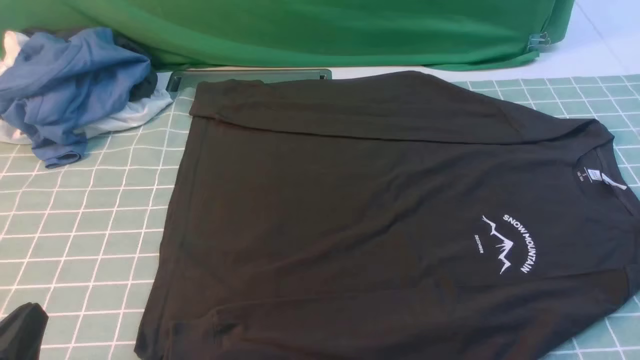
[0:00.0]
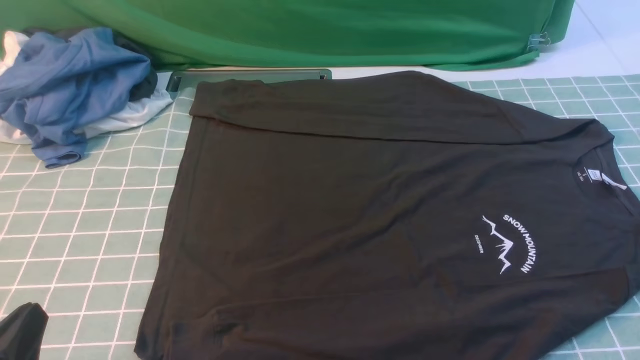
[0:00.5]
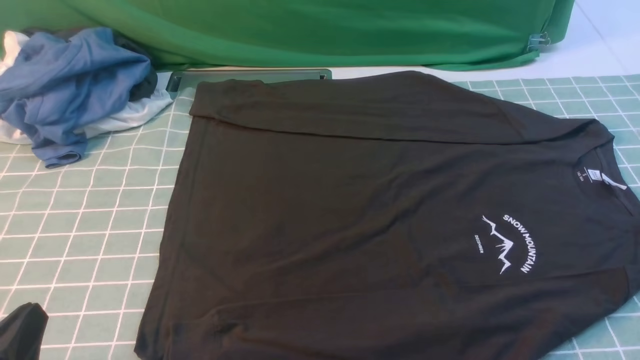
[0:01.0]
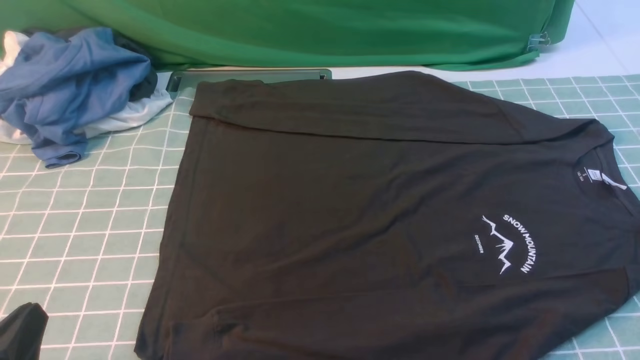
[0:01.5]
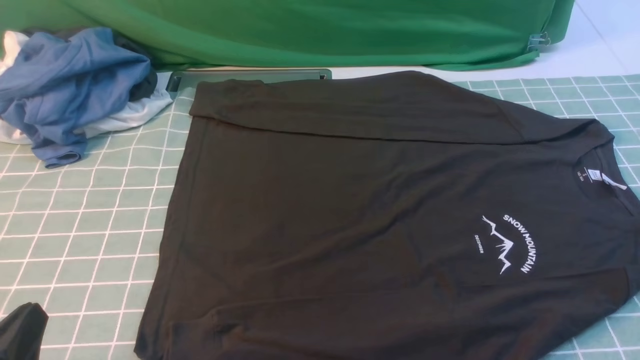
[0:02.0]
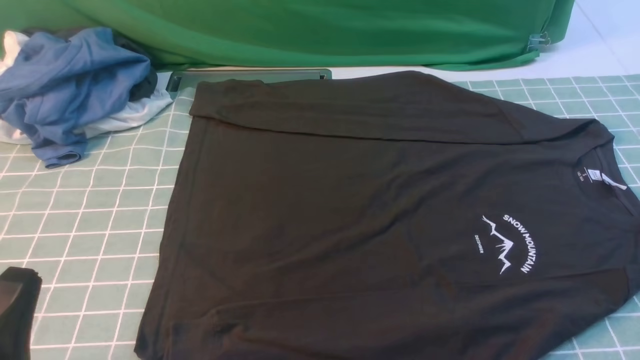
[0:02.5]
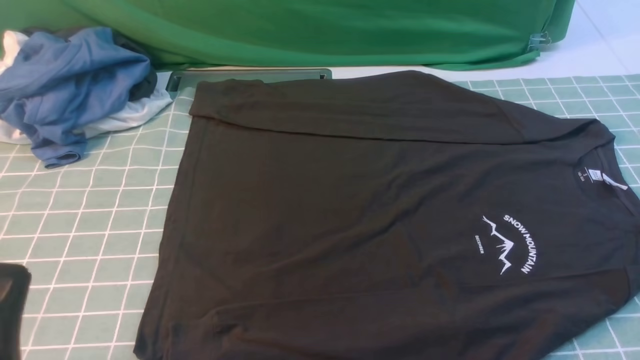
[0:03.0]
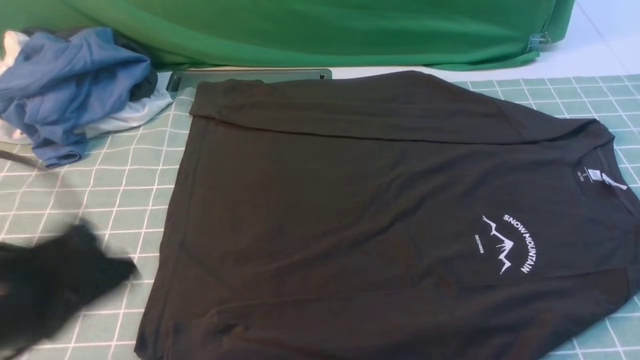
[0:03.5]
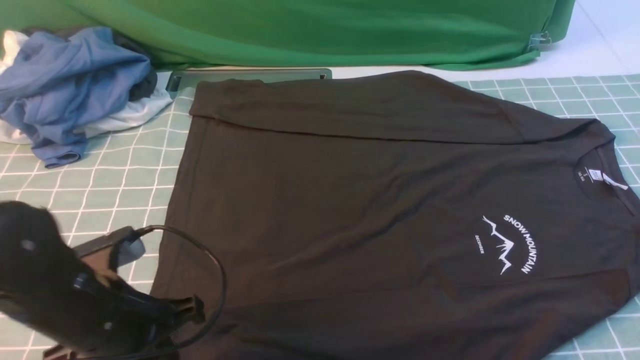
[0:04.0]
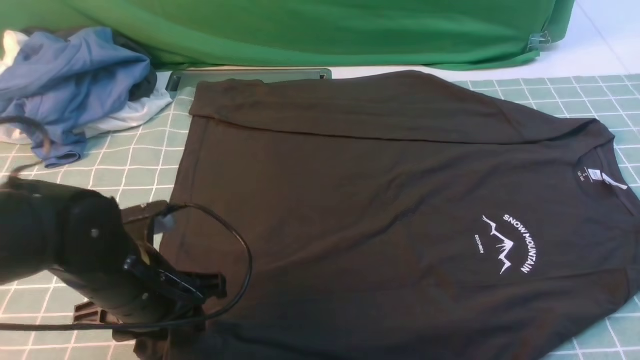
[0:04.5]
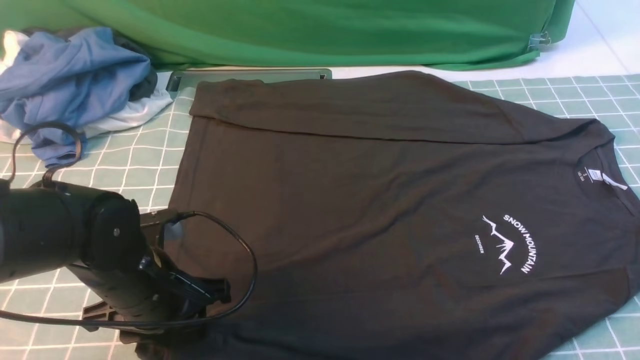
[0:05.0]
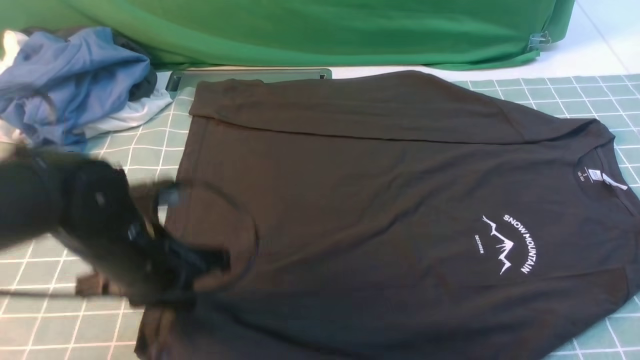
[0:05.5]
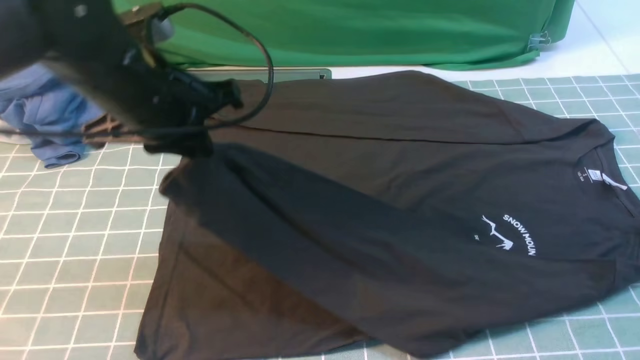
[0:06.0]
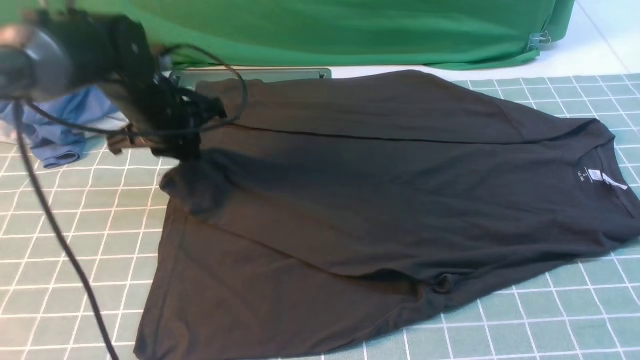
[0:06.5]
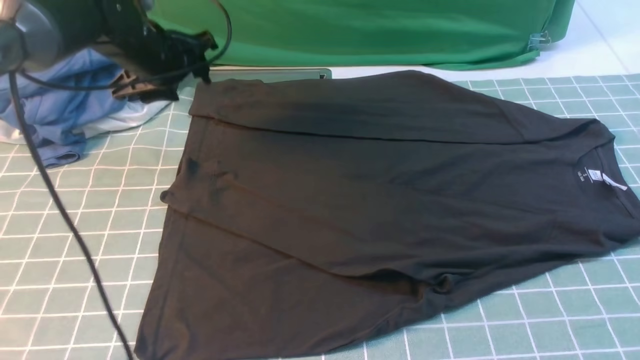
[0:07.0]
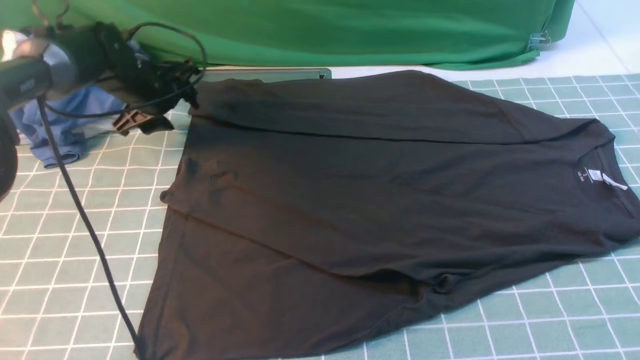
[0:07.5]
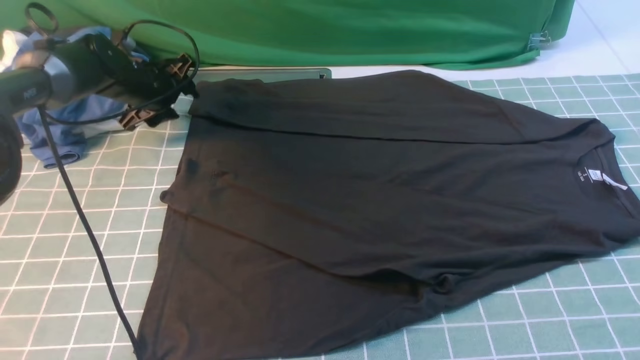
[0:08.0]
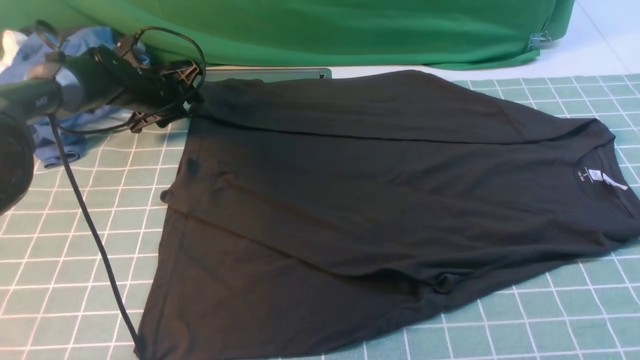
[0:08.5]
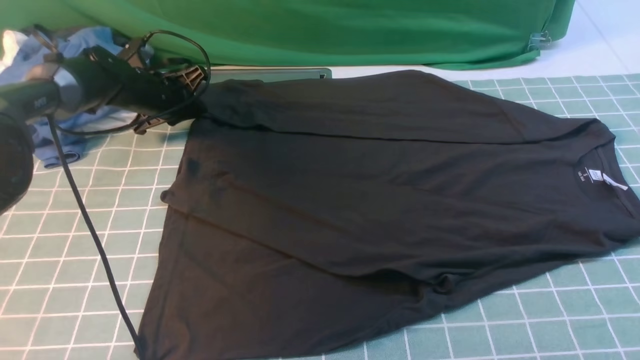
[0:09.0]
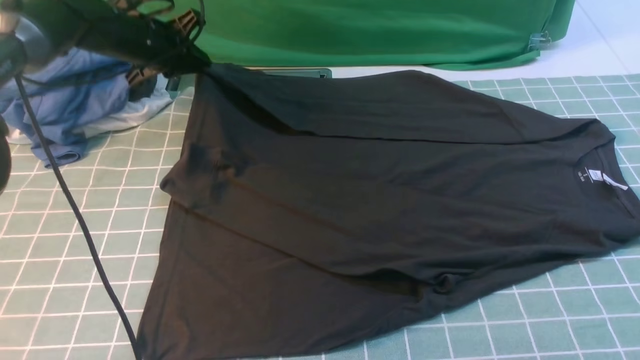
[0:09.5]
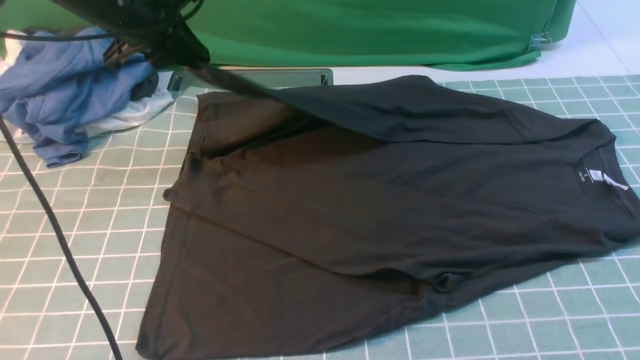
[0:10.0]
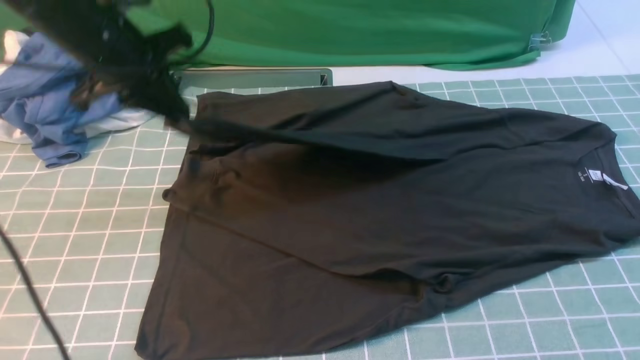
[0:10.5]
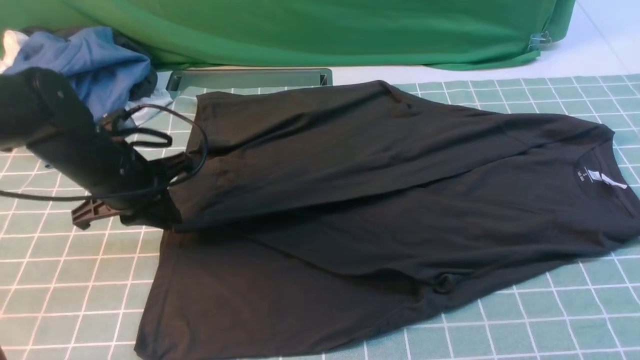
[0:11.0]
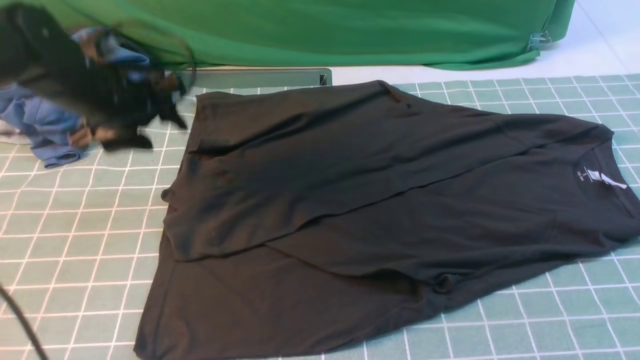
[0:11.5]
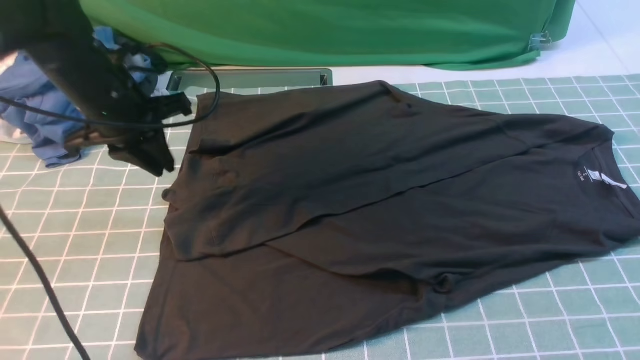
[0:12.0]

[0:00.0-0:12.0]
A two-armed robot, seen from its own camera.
Step, 0:00.0 to 0:05.0: use the left arm to clamp the cuff closest to it.
Step, 0:05.5 to 0:06.5: use the left arm to drag and place the cuff at the centered position on the left edge of the fabric.
Step, 0:07.0 to 0:09.0: use the left arm to clamp the cuff farthest from it.
Step, 0:09.5 to 0:11.0: use the left arm to drag and drop the cuff onto the cuff closest to the left arm.
0:02.0 to 0:04.0: The left gripper shifts some 15 cm forward and to the right.
0:04.0 to 0:06.0: The left gripper moves forward and upward, some 20 cm, and opens and closes again.
0:06.0 to 0:08.0: The left gripper shifts some 25 cm forward, downward and to the left, and opens up.
0:08.0 to 0:10.0: The right gripper closes, while the left gripper travels upward by some 15 cm, and closes.
0:10.0 to 0:12.0: The left gripper shifts roughly 10 cm backward and downward, and opens, then closes once more.

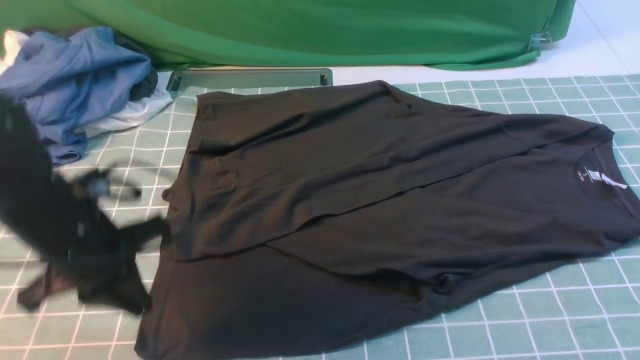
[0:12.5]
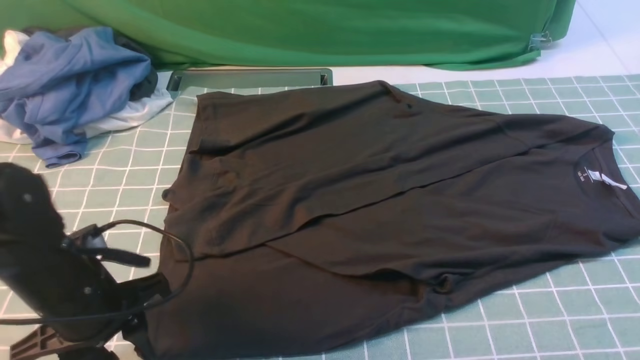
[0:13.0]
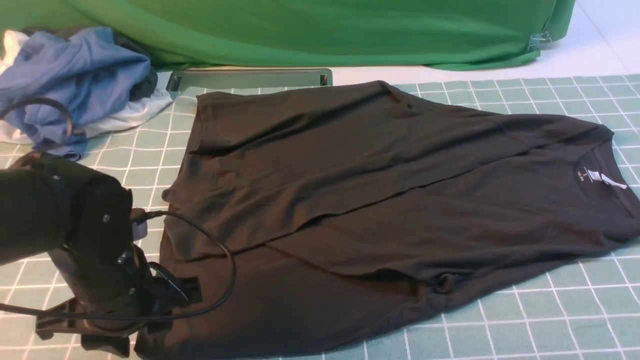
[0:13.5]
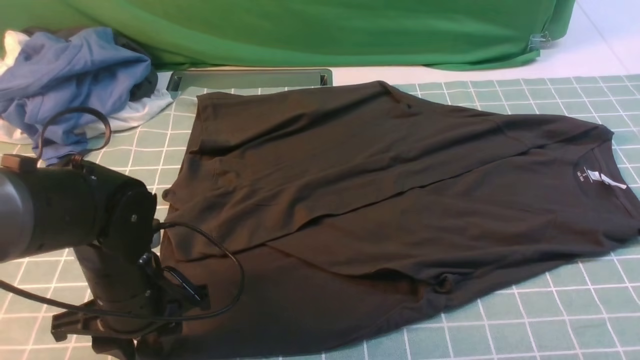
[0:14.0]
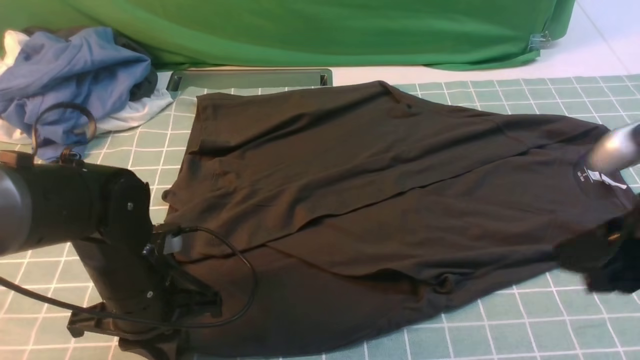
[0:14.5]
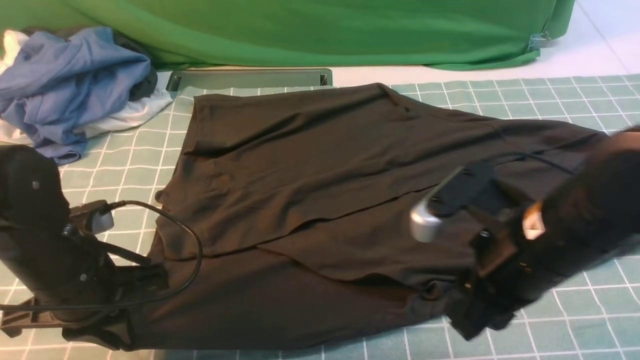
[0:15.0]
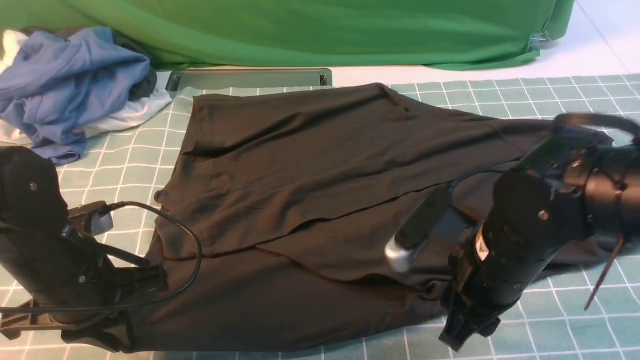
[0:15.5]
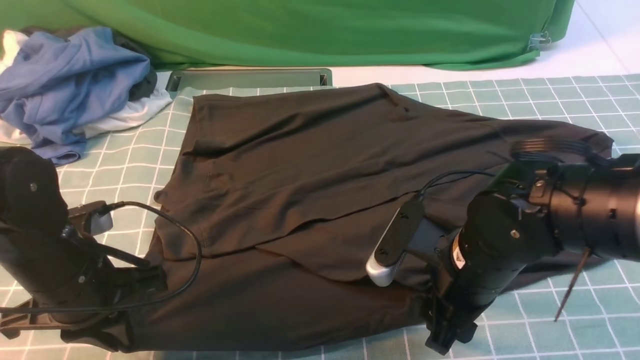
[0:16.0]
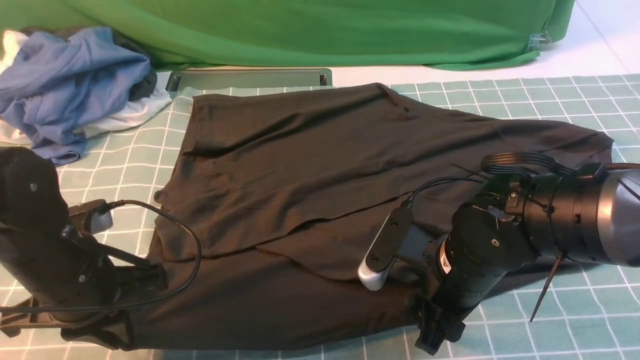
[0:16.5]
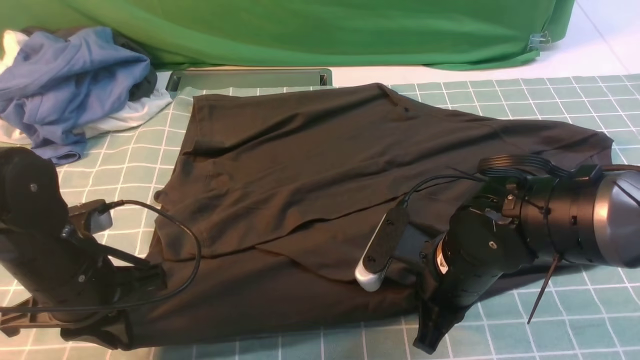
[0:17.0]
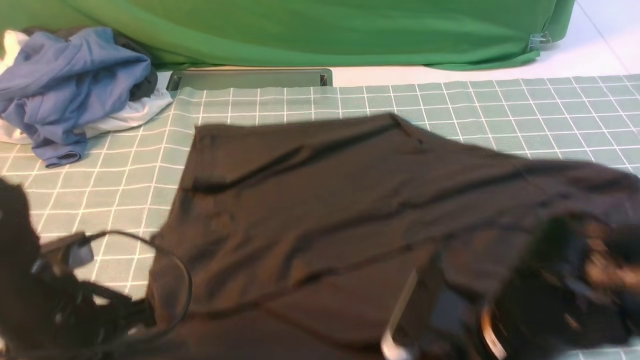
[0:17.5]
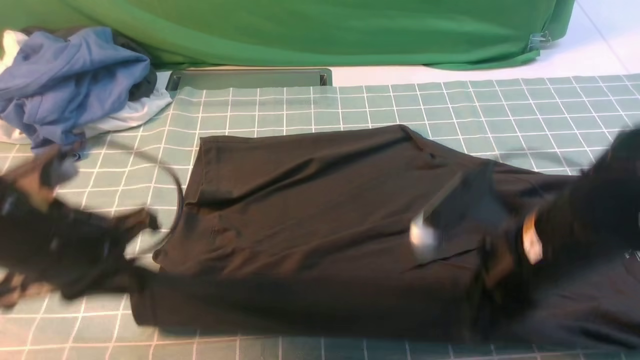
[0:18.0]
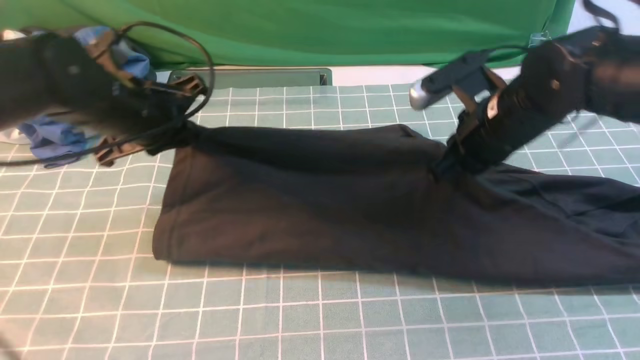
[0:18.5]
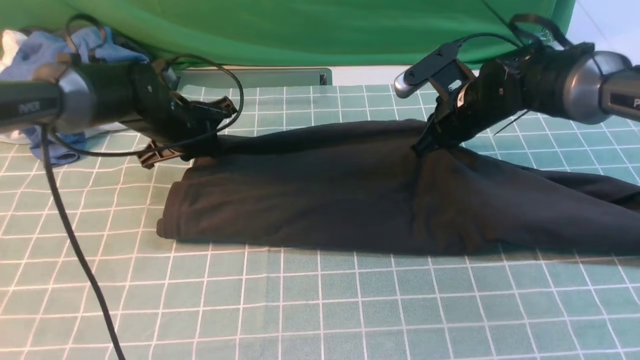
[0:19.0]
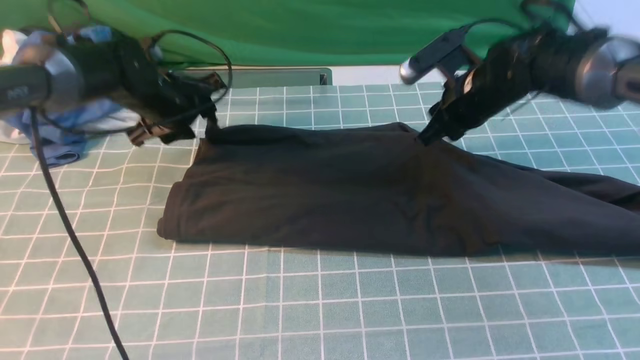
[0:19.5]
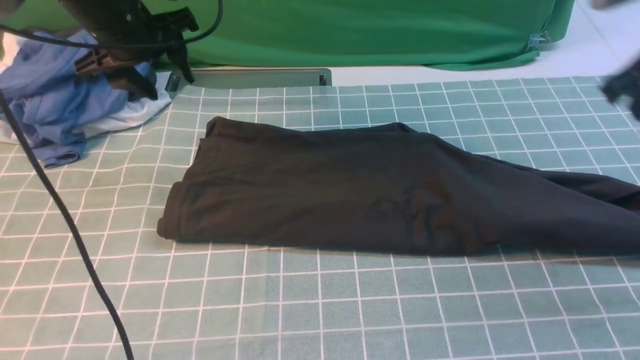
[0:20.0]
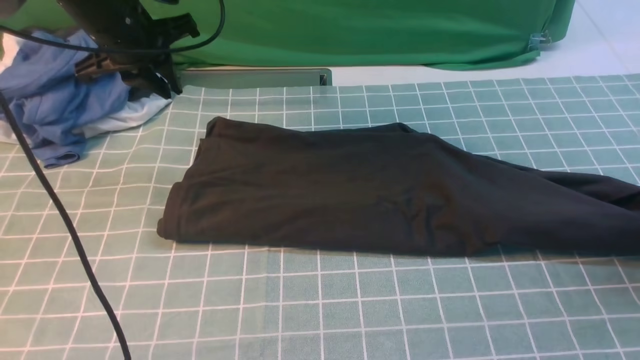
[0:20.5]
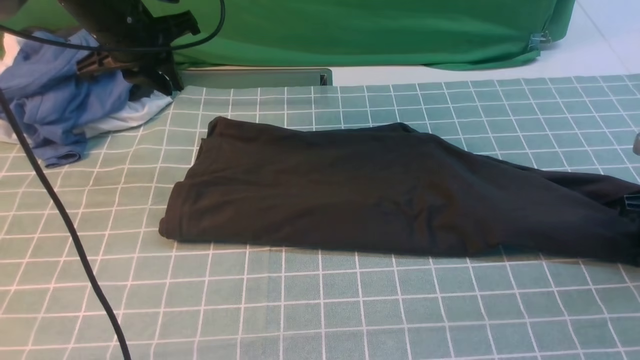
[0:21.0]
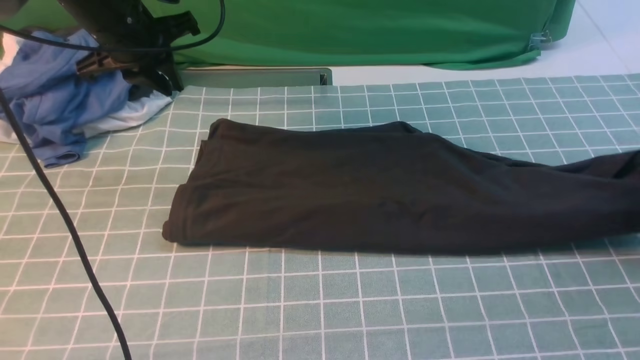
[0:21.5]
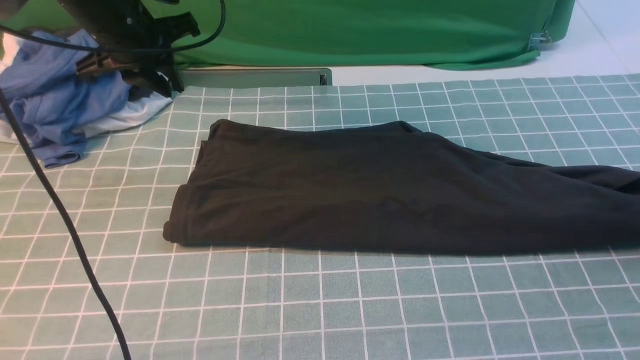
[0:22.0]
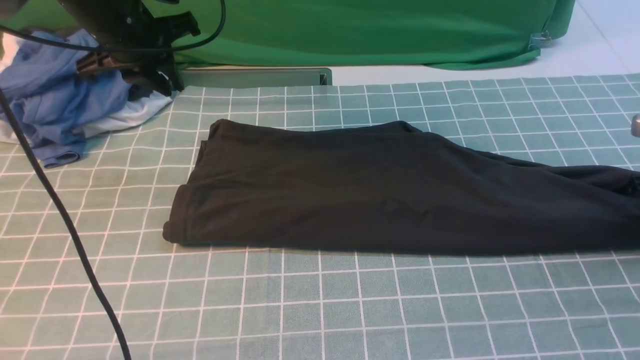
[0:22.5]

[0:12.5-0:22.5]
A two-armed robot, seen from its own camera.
Step, 0:12.5 to 0:17.0: use both arms simultaneously to clamp the lower edge of the clothing fabric.
Step, 0:17.5 to 0:19.5: use both arms to drag the lower edge of the fabric forward and fold it over the upper edge.
0:12.5 to 0:14.5: The right gripper shifts some 5 cm to the left; the left gripper changes place by about 5 cm, and opens, then closes again.
0:14.5 to 0:16.5: The left gripper moves about 5 cm, while the right gripper shifts some 20 cm to the left, downward and forward, and opens its fingers.
0:16.5 to 0:18.5: The left gripper goes approximately 15 cm forward, while the right gripper shifts some 15 cm forward, upward and to the right, and closes its fingers.
0:18.5 to 0:20.5: The left gripper heads forward and upward, covering approximately 10 cm, and opens, then closes once more. Meanwhile the right gripper goes about 25 cm to the right, and opens up.
0:20.5 to 0:22.5: The right gripper heads forward, covering some 5 cm.
